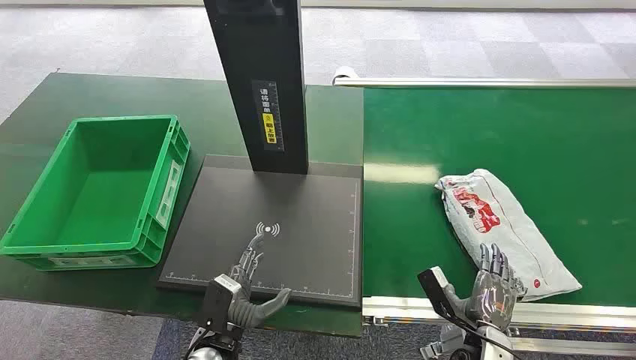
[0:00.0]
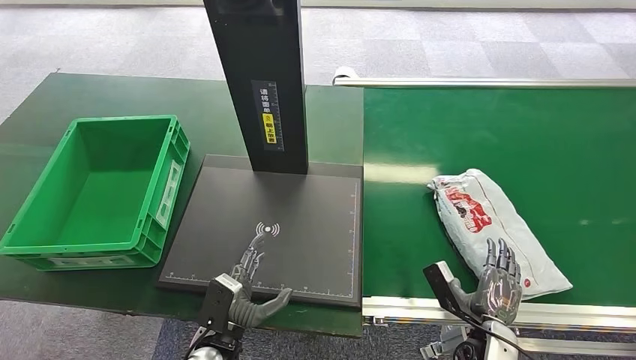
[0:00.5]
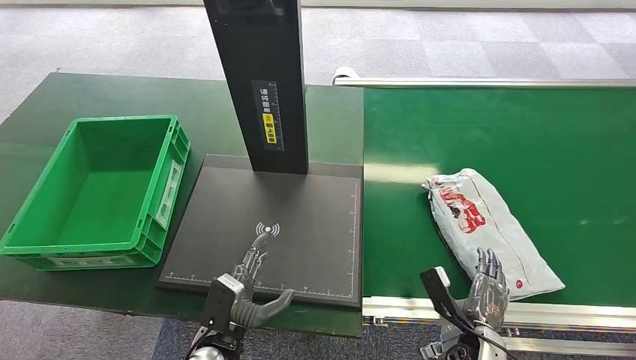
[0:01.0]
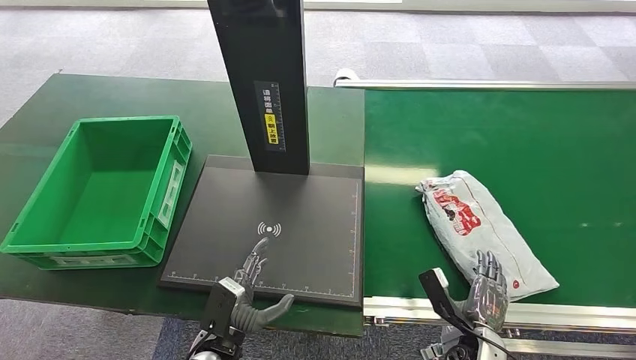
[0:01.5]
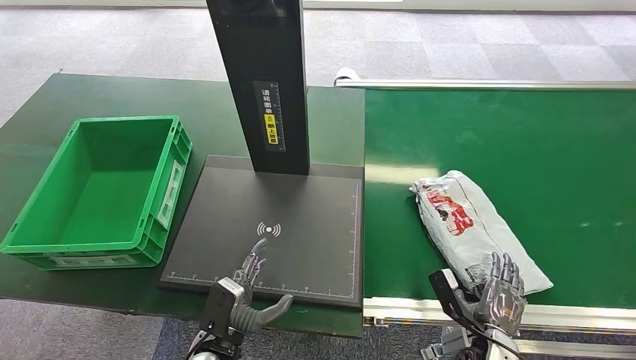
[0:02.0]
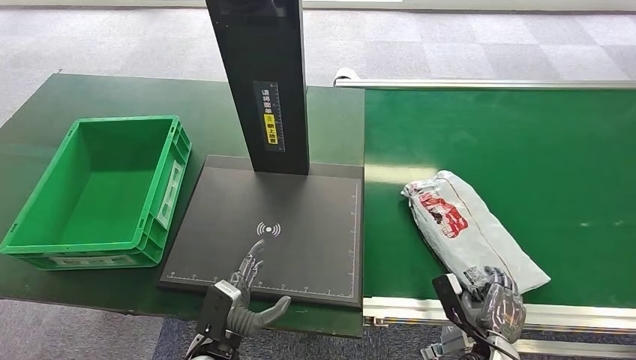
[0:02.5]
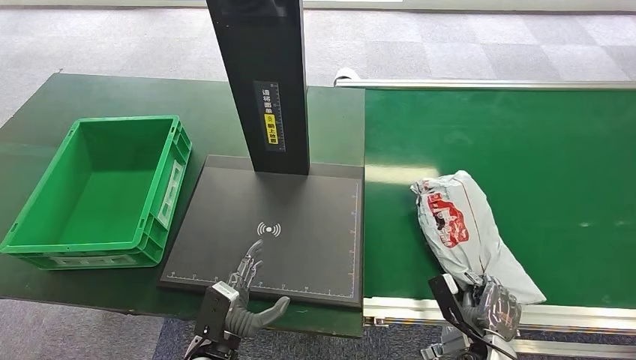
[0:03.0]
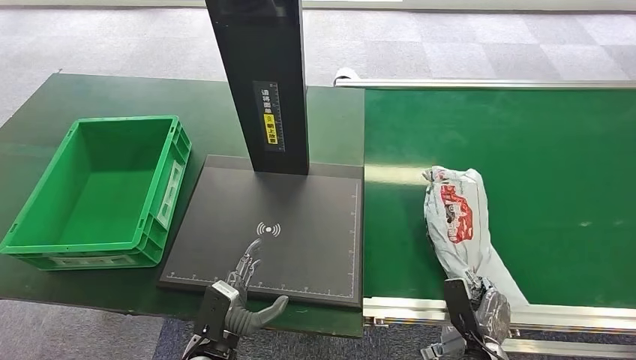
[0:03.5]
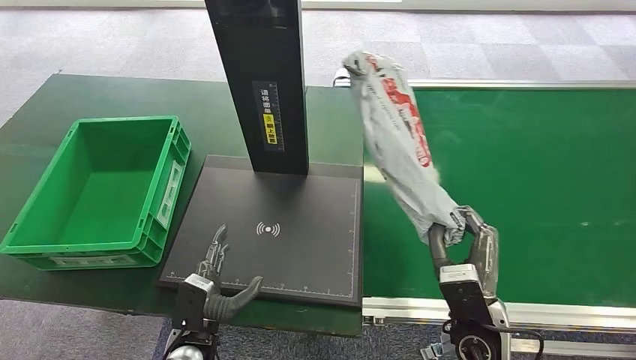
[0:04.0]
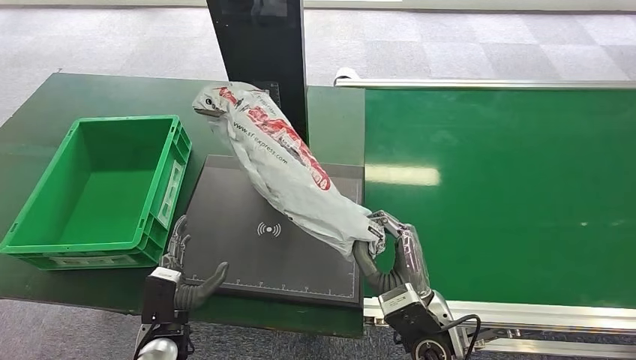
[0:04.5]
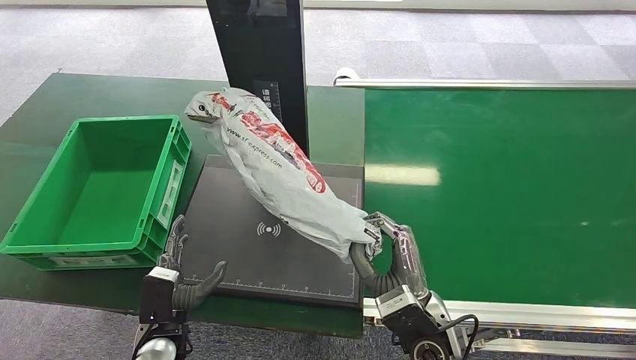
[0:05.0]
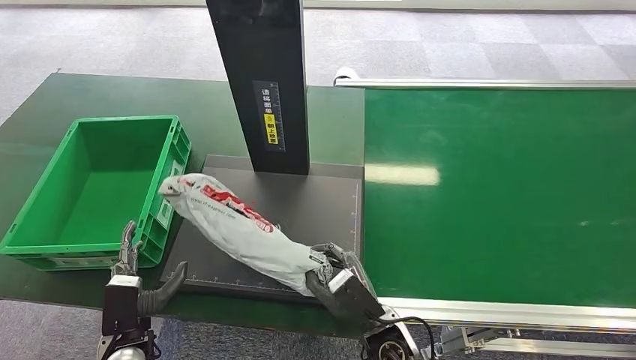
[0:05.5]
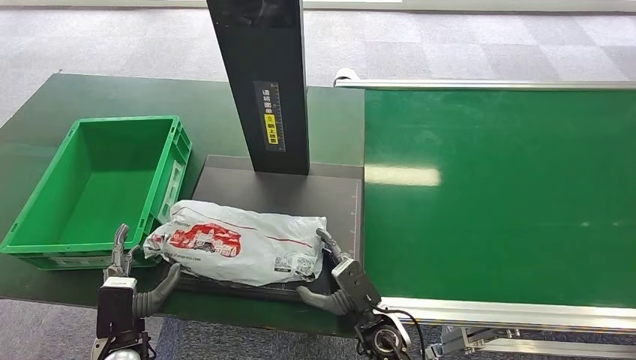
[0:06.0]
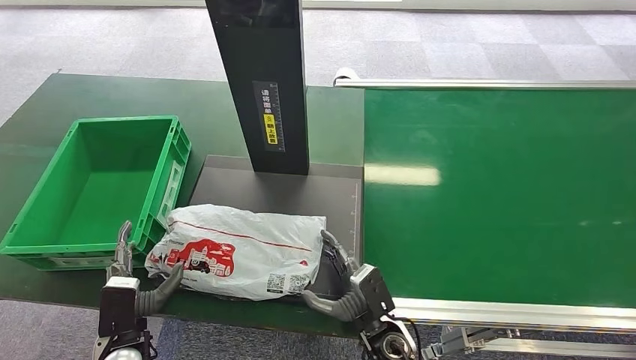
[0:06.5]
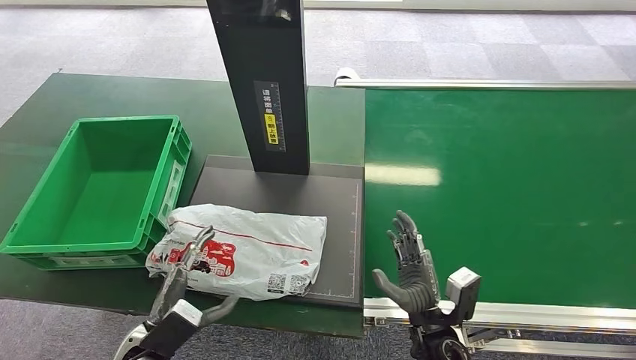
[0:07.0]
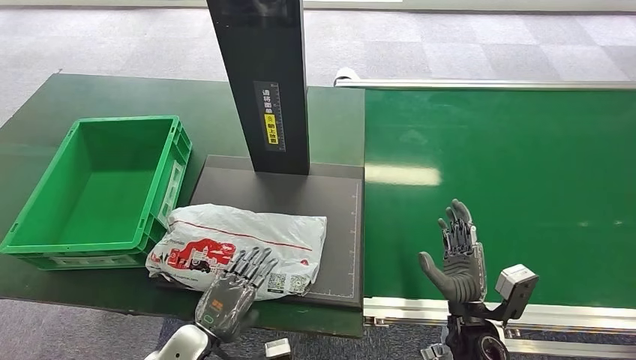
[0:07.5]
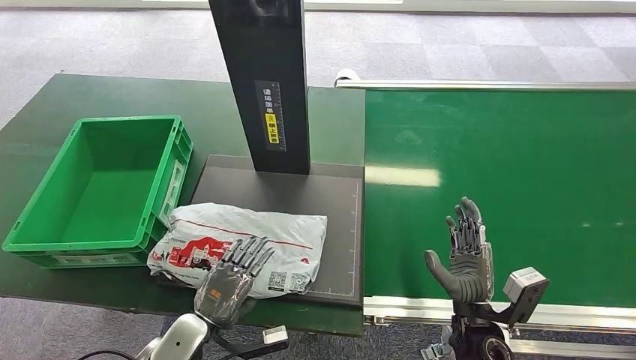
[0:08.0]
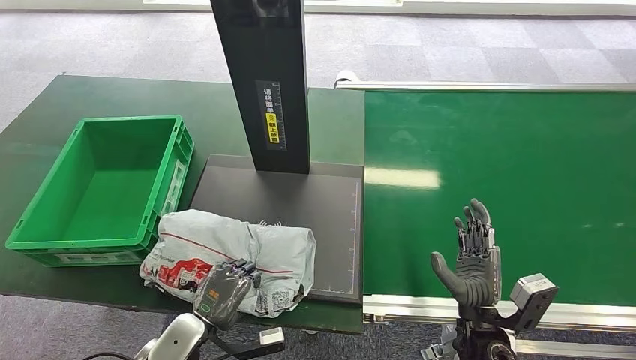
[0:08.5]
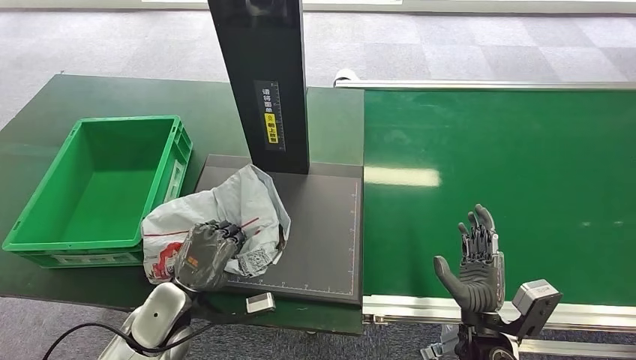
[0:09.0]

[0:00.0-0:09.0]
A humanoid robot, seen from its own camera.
Step, 0:00.0 to 0:04.0: Pick up the package from the conveyor belt.
Step, 0:04.5 to 0:07.0: Place the package onto the inbound machine.
0:02.0 to 0:04.5: The left hand goes roughly 10 cm to the left, while the right hand heads to the left and upward, covering approximately 20 cm.
0:04.5 to 0:07.0: The right hand heads downward, covering roughly 10 cm.
0:07.0 to 0:09.0: The left hand heads forward, covering about 5 cm. Meanwhile the right hand is displaced to the right by roughly 5 cm.

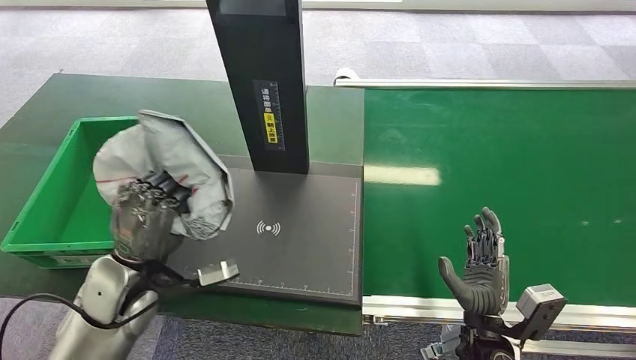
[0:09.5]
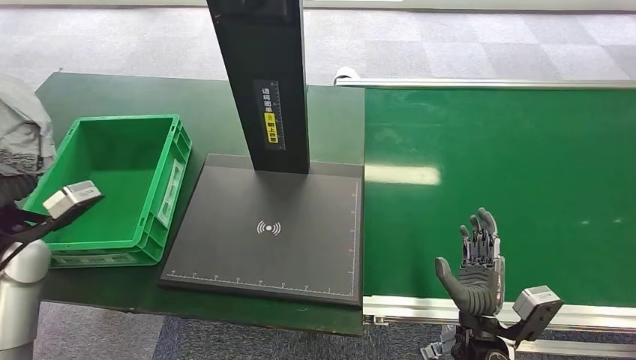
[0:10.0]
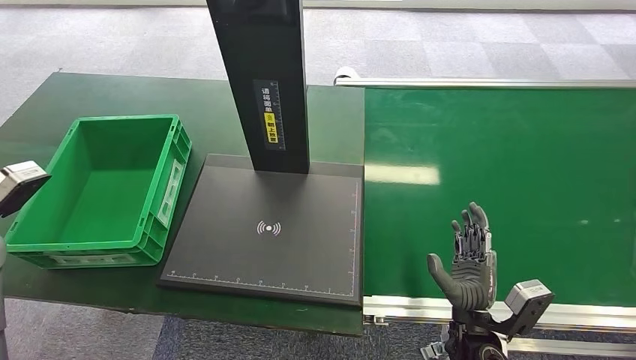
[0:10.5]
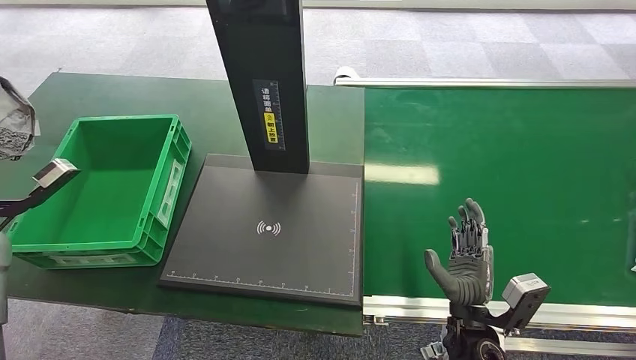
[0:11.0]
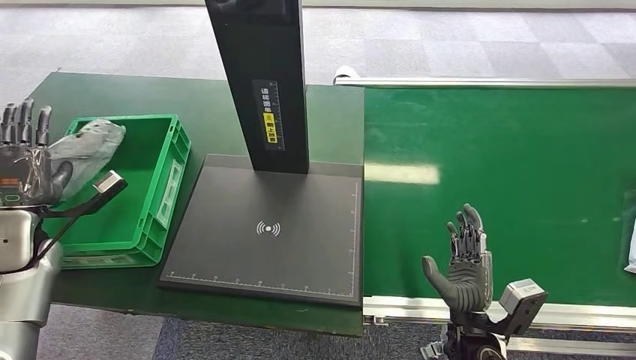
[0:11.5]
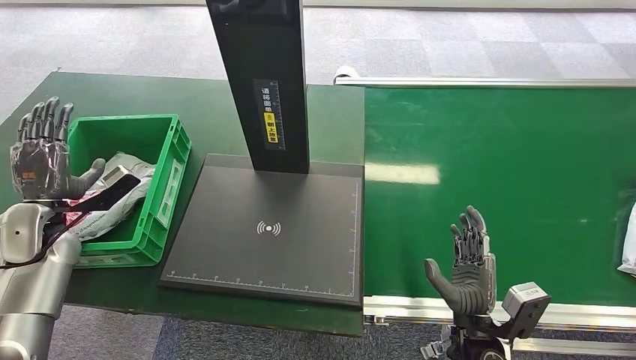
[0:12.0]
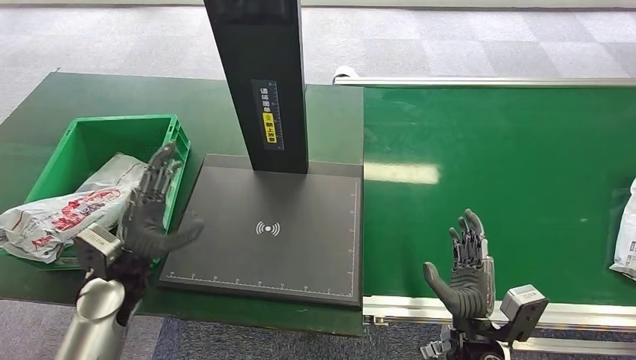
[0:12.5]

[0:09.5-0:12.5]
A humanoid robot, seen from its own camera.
Step, 0:11.0 to 0:12.5: Place the package into the parcel locker.
0:09.5 to 0:11.0: The left hand heads to the left, covering some 25 cm.
0:11.0 to 0:12.5: The left hand is displaced to the right and downward by approximately 25 cm.
